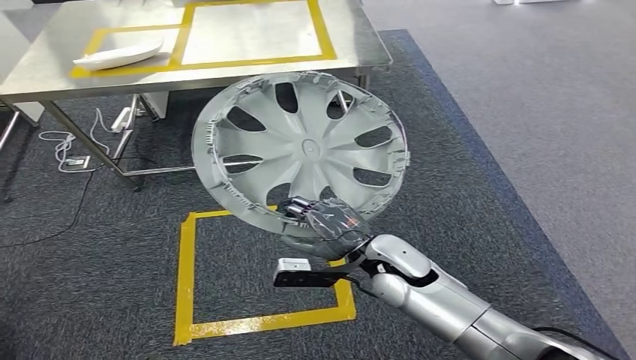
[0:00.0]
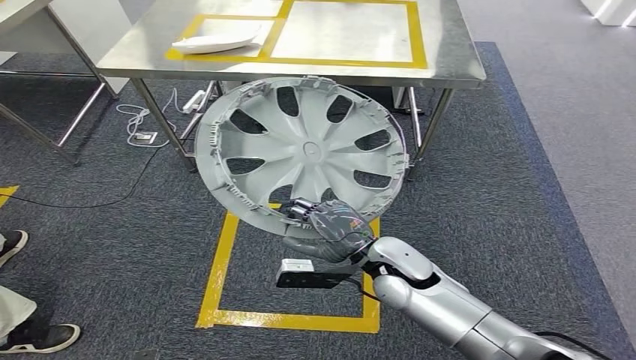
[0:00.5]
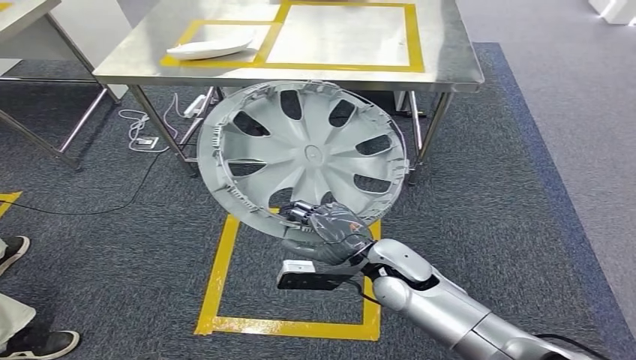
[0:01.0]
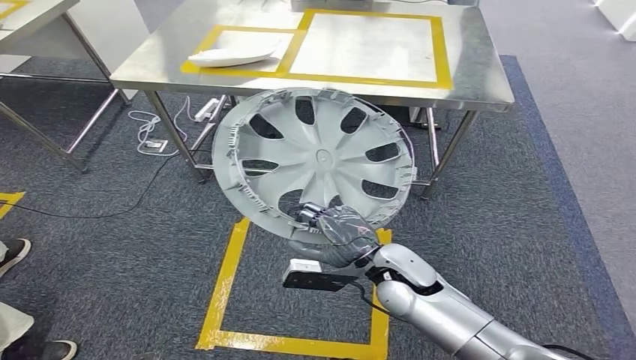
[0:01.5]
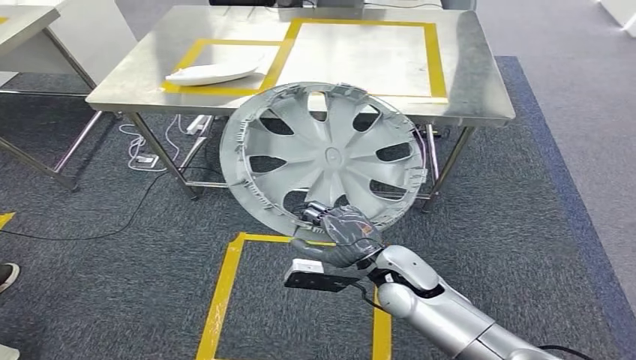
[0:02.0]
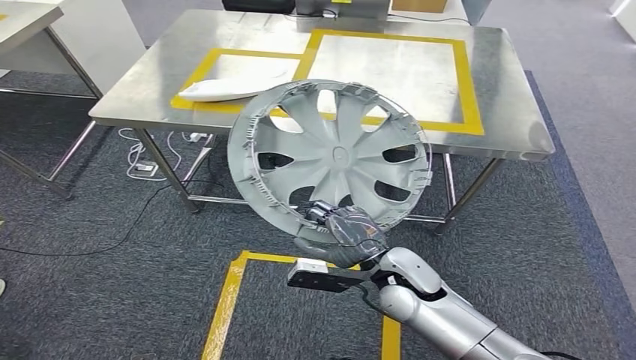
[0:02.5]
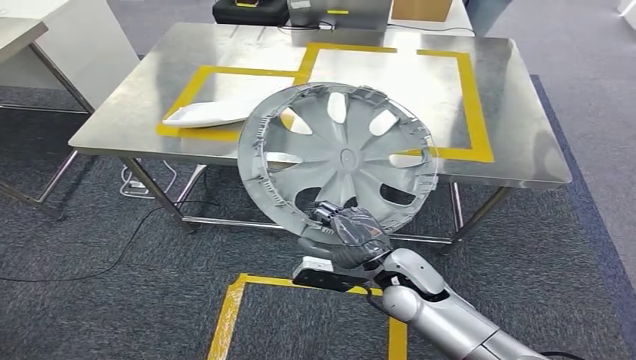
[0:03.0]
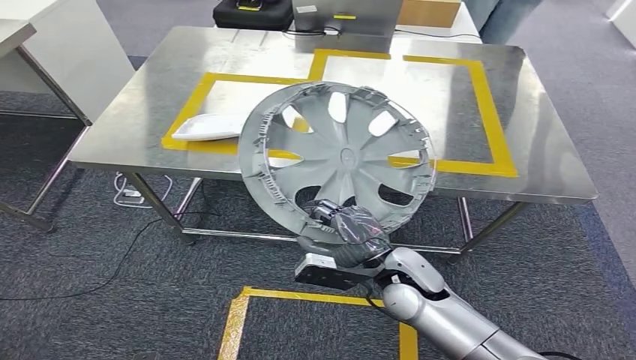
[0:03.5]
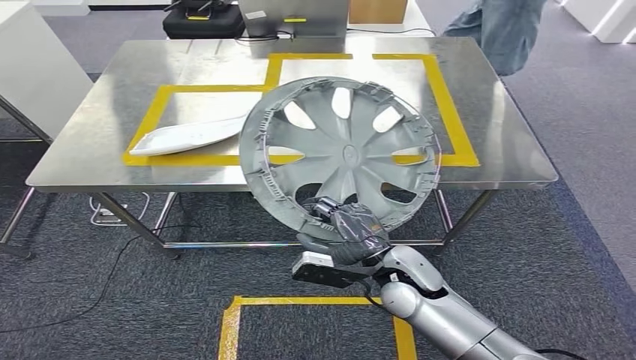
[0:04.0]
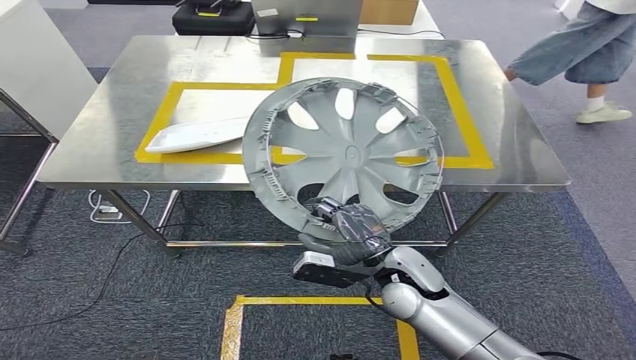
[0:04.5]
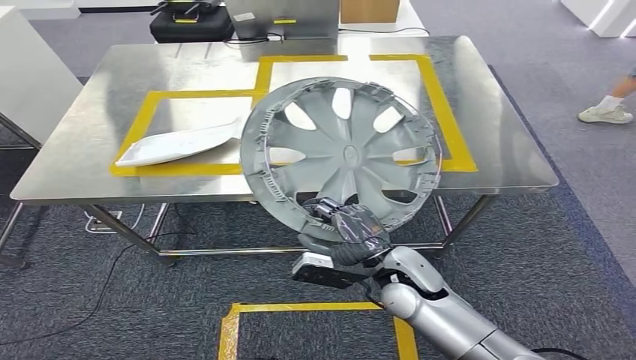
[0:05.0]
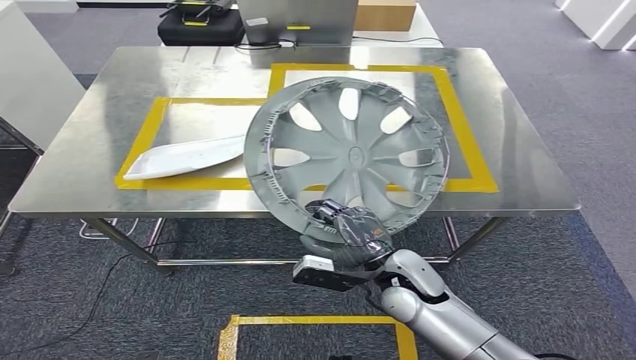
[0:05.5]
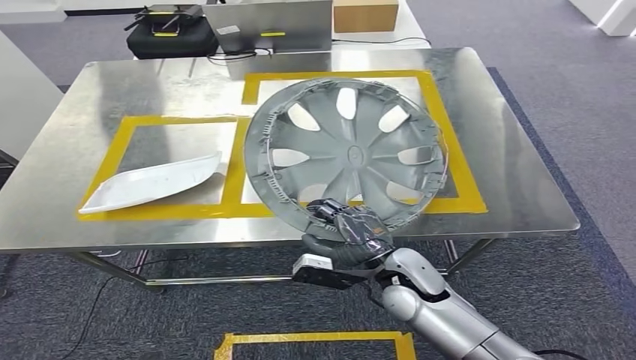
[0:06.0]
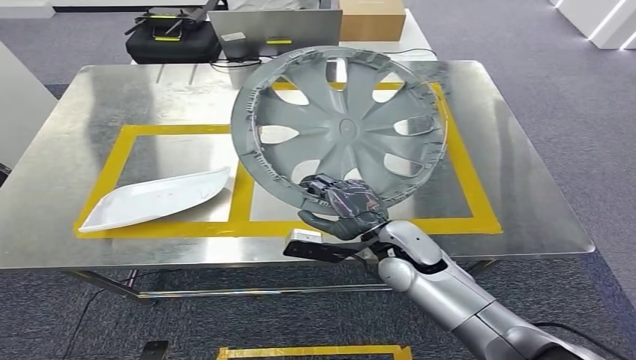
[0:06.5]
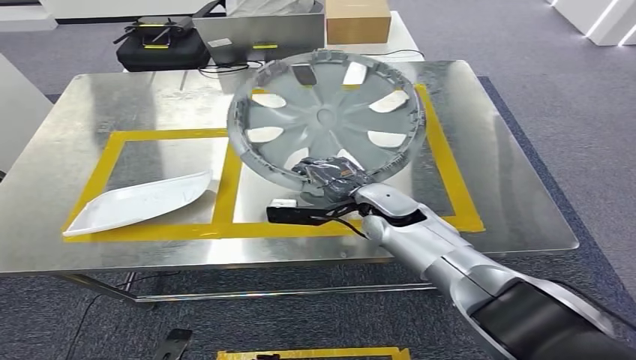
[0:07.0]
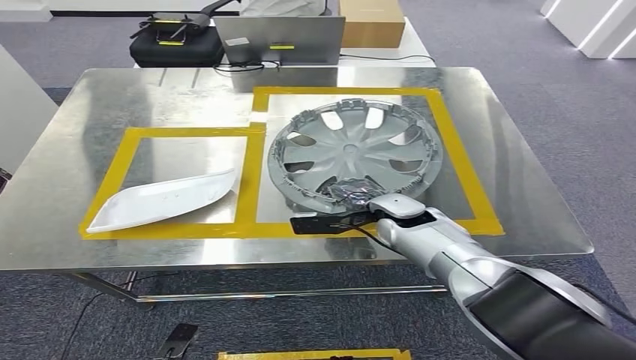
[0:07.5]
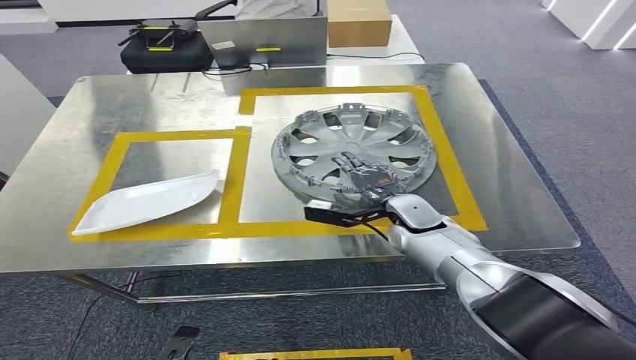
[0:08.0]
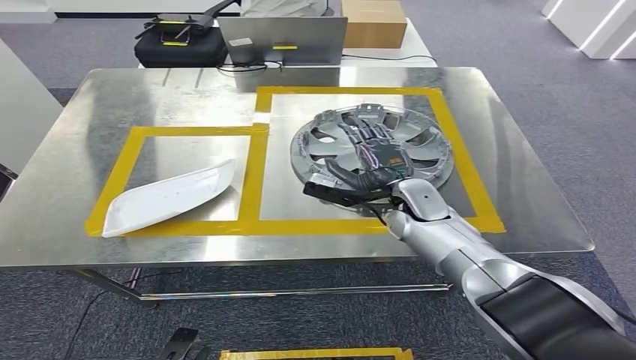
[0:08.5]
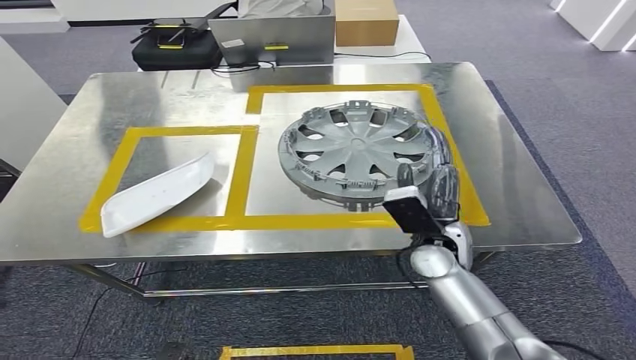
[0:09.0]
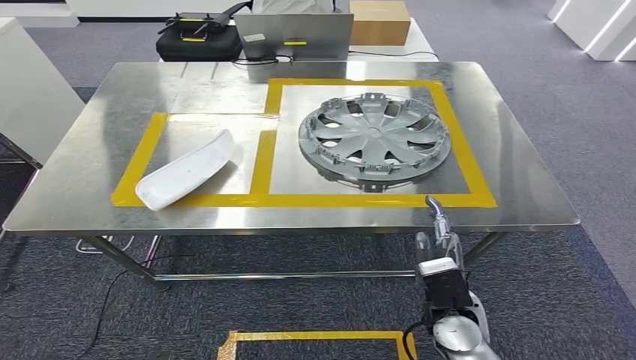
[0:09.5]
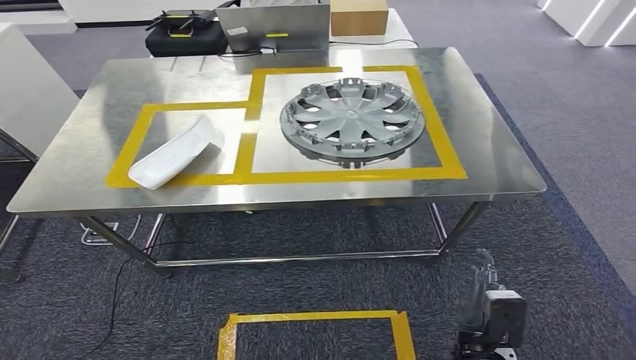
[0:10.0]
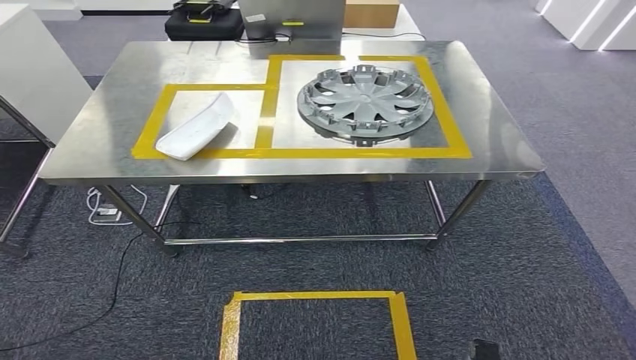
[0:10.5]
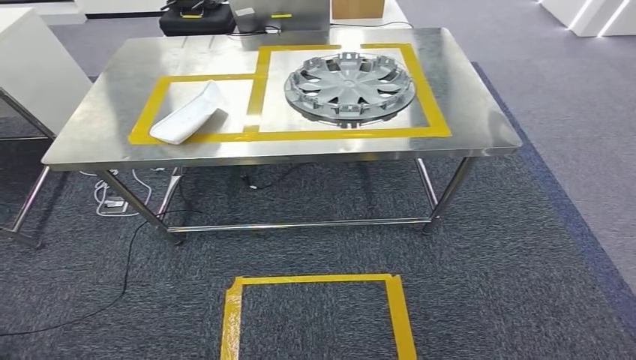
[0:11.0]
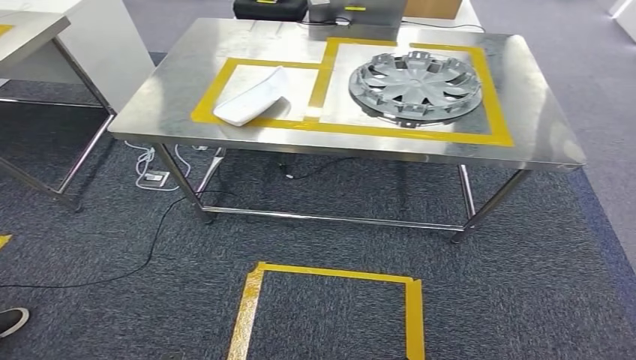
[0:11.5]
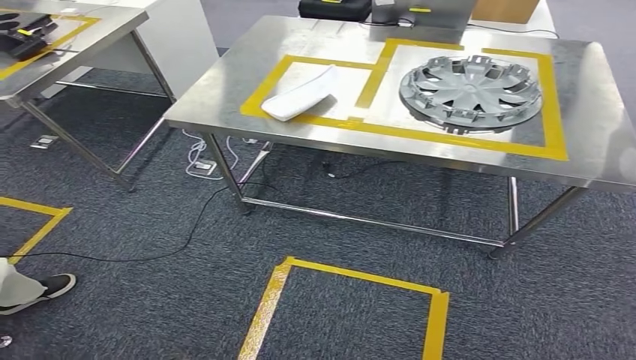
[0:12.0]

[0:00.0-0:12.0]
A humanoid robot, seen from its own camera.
Step, 0:01.5 to 0:10.0: Insert the small component into the corresponding slot on the workbench.

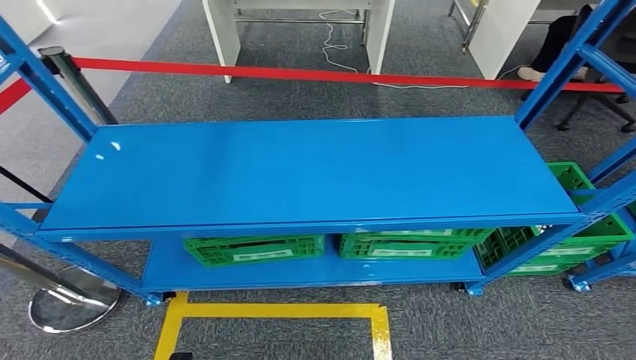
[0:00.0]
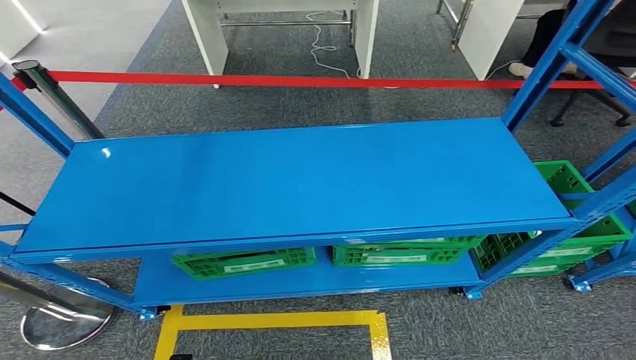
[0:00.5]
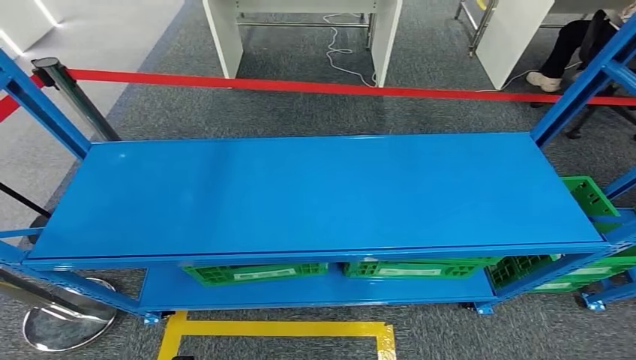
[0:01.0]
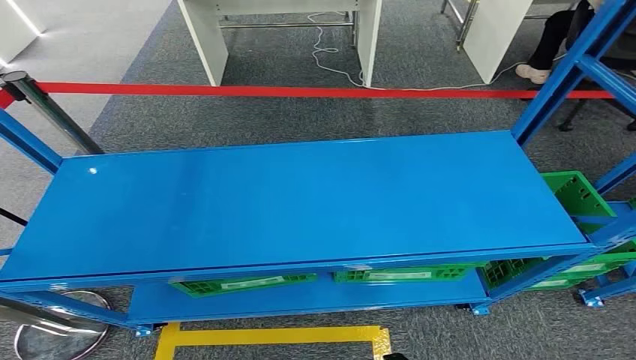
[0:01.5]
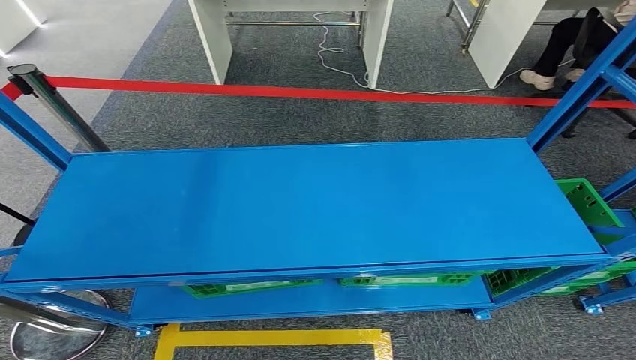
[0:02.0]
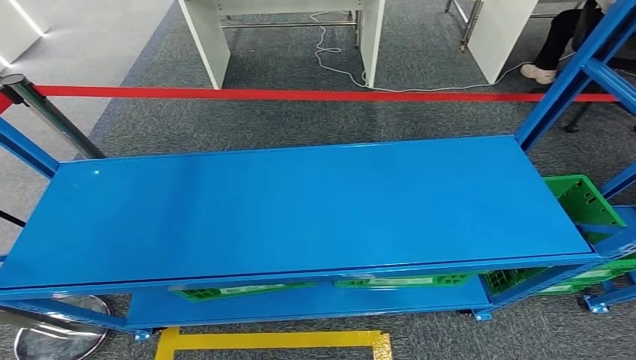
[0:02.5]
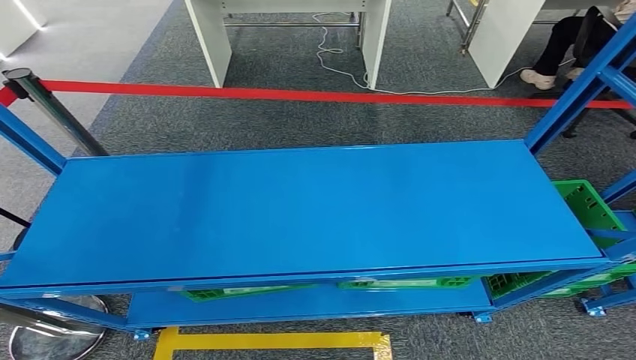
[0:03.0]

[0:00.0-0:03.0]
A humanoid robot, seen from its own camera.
Step, 0:00.0 to 0:03.0: Move to the initial position of the workbench.
0:01.5 to 0:03.0: The left hand shifts roughly 5 cm to the left. The right hand is displaced to the right and backward by roughly 10 cm.
